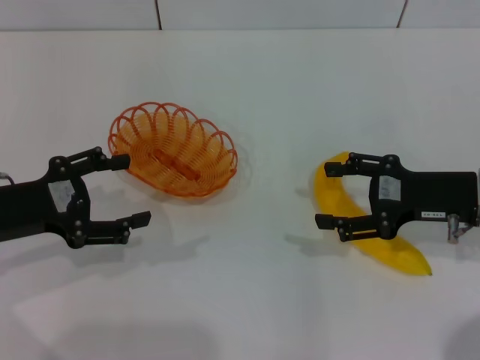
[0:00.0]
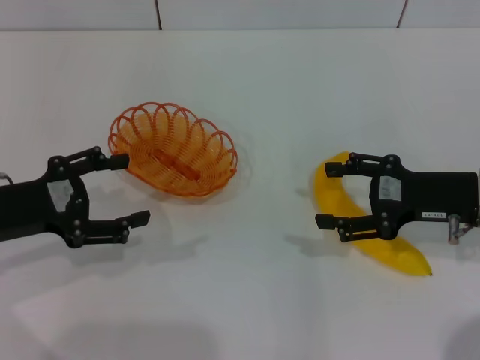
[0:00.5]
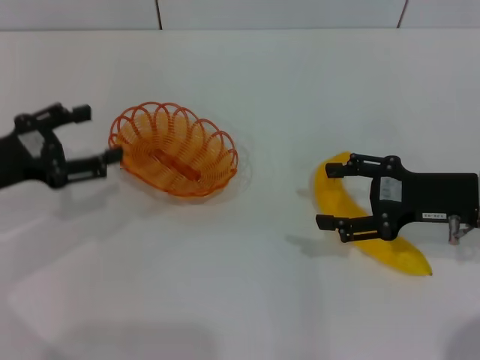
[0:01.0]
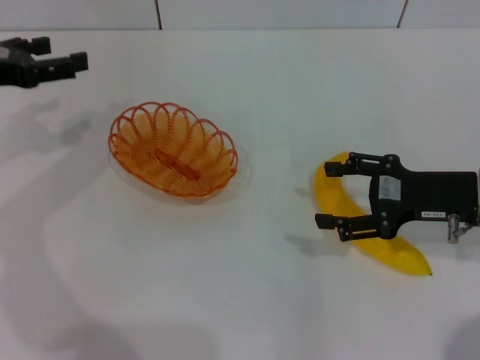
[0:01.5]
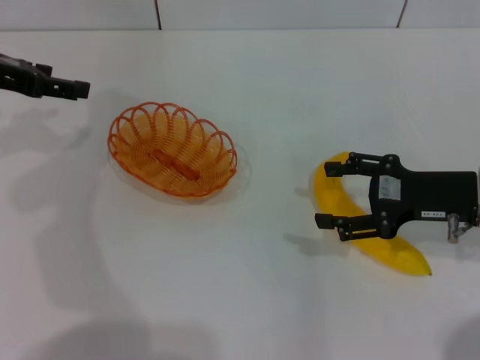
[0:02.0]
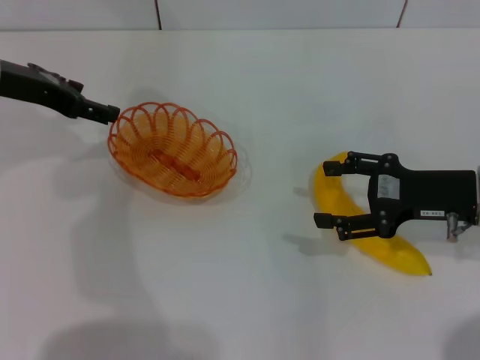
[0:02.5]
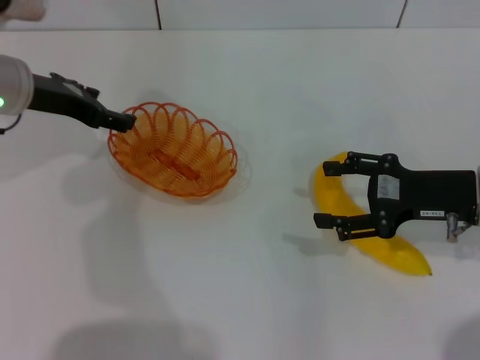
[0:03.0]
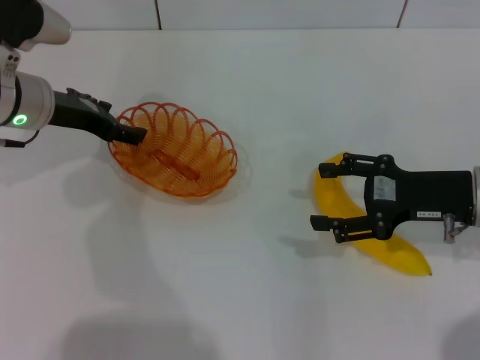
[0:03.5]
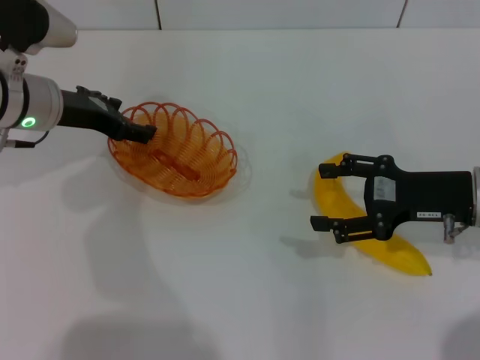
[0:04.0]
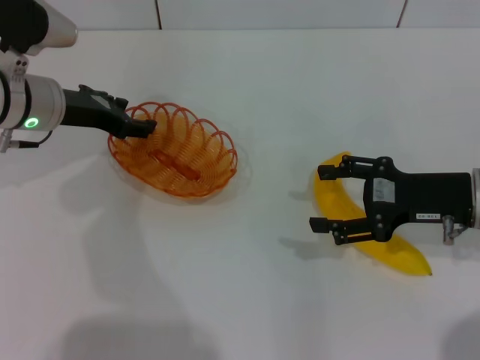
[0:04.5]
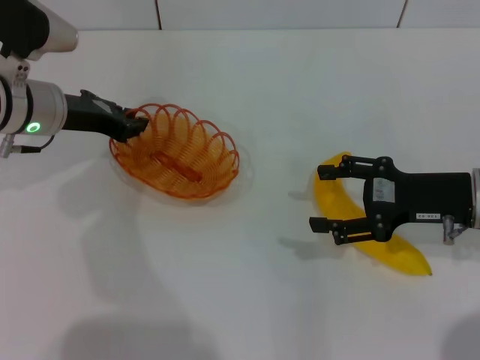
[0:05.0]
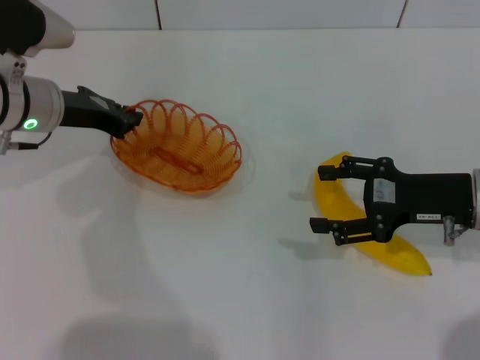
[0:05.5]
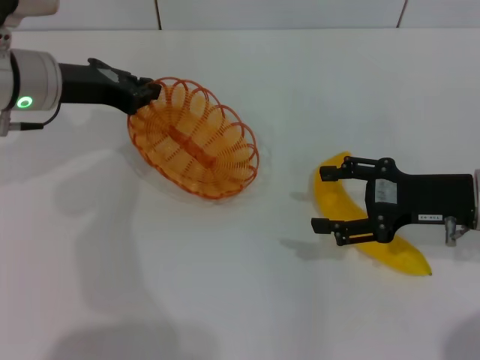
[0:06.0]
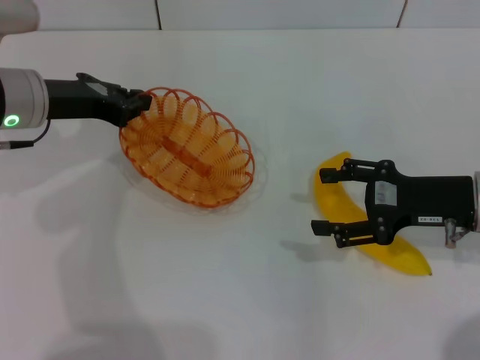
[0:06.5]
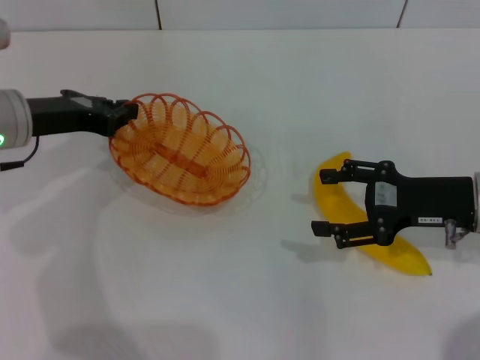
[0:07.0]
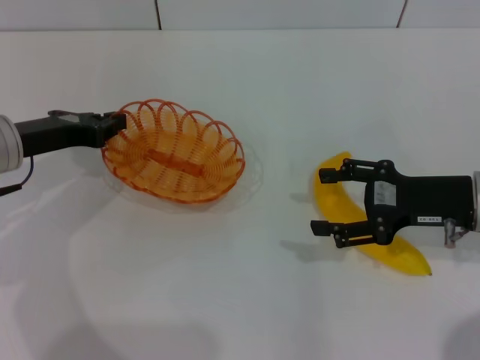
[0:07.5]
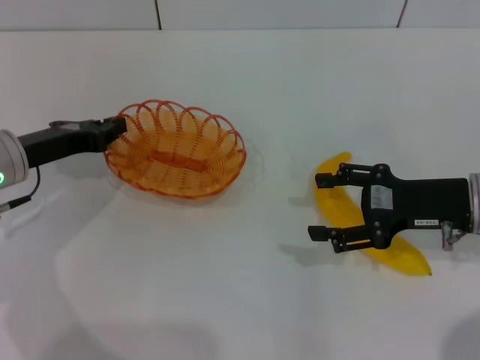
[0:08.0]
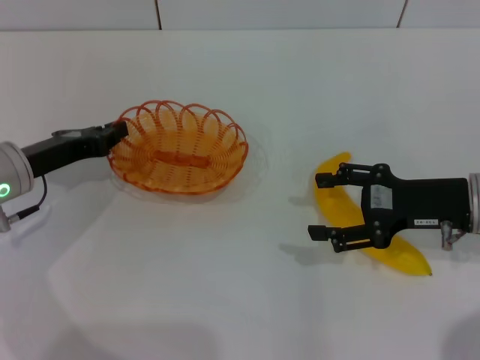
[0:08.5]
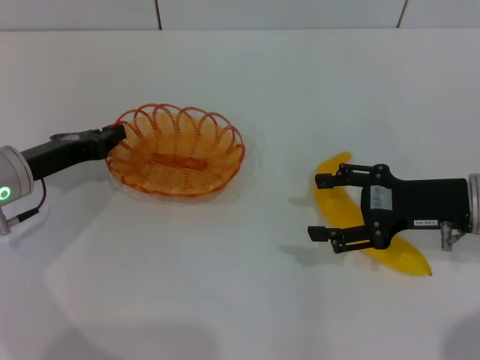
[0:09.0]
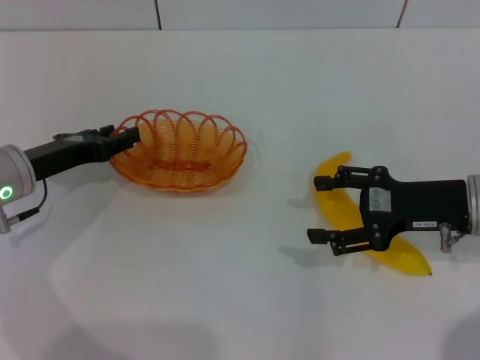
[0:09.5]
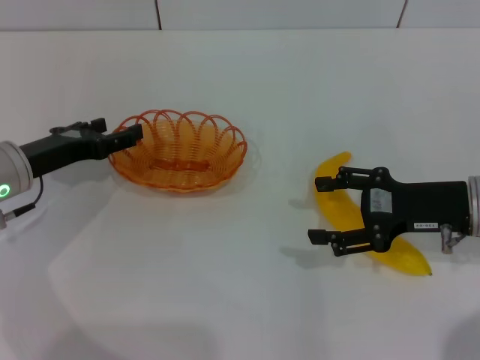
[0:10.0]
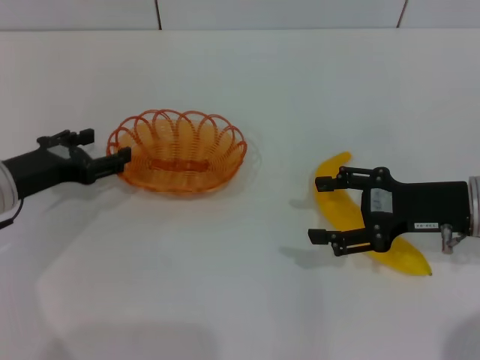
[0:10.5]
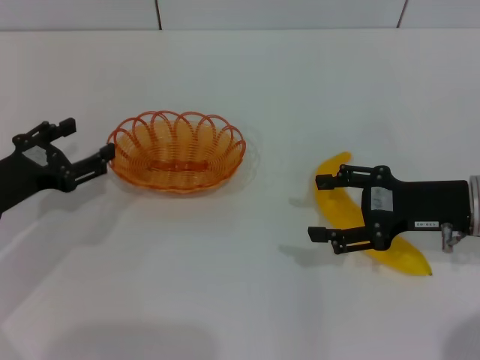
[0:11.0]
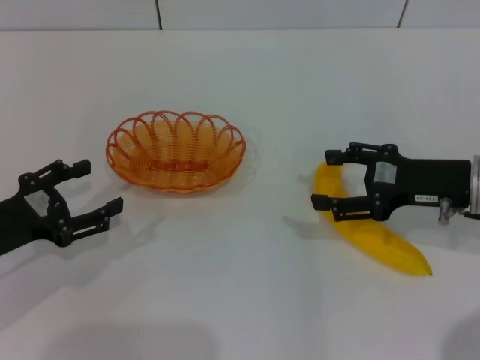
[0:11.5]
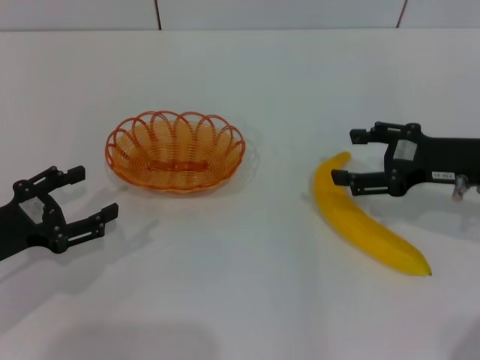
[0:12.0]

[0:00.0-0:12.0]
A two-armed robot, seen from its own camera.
Step, 0:00.0 to 0:06.0: Pick up the basket with the left gripper.
Step, 0:06.5 to 0:10.0: Place the basket in the center of view with the left gripper.
0:00.0 to 0:02.0: The left gripper shifts approximately 15 cm forward and upward.
0:02.0 to 0:04.0: The left gripper moves to the right and downward, approximately 10 cm.
0:04.0 to 0:06.0: The left gripper closes its fingers.
0:06.0 to 0:08.0: The left gripper heads downward and backward, covering some 10 cm.
0:08.0 to 0:10.0: The left gripper opens up.
0:10.0 to 0:12.0: The left gripper is displaced backward by roughly 10 cm.

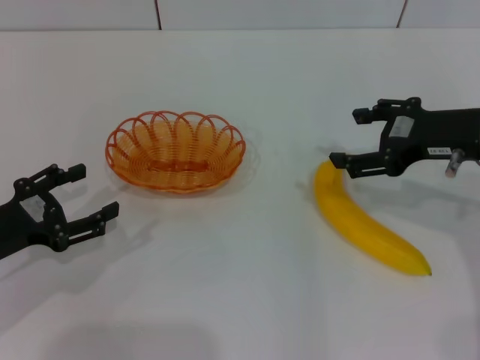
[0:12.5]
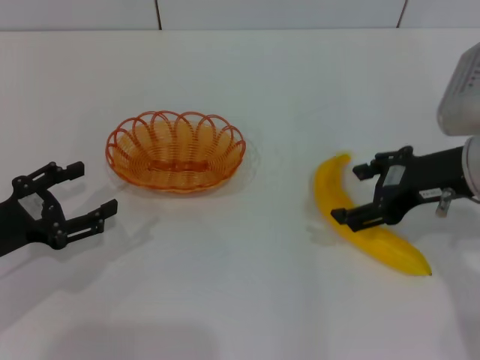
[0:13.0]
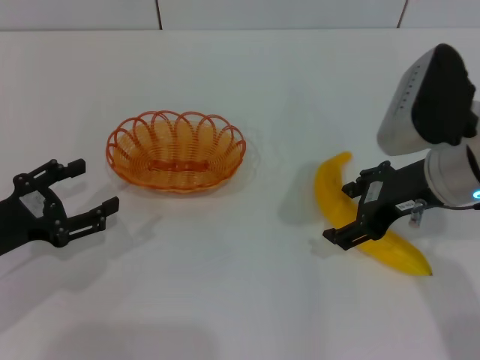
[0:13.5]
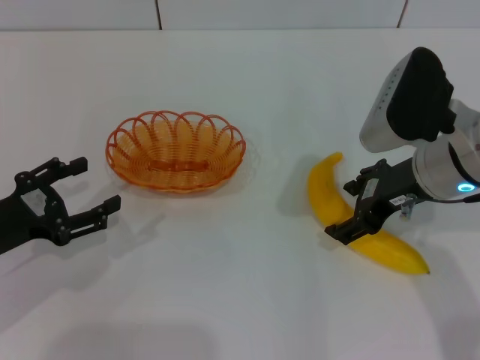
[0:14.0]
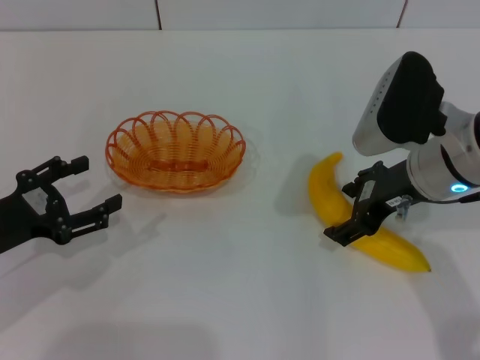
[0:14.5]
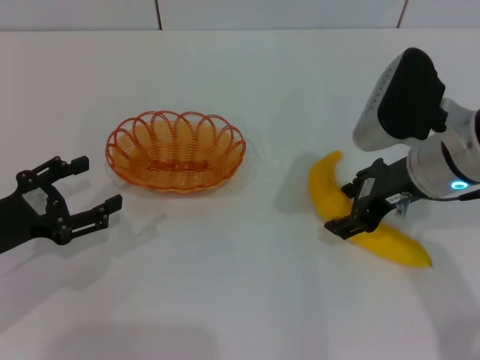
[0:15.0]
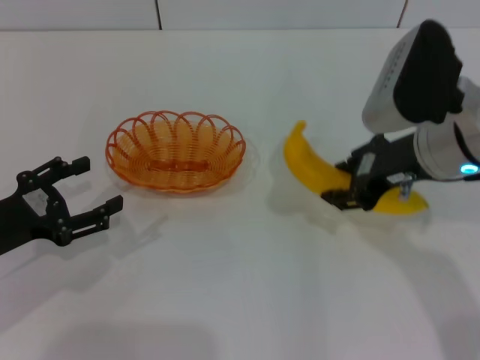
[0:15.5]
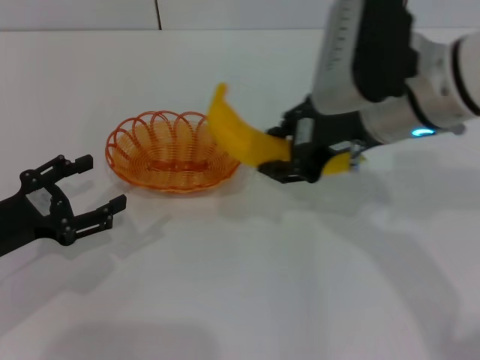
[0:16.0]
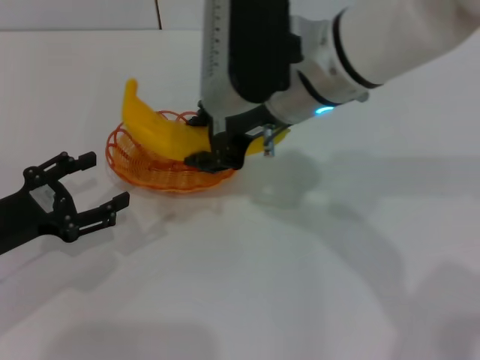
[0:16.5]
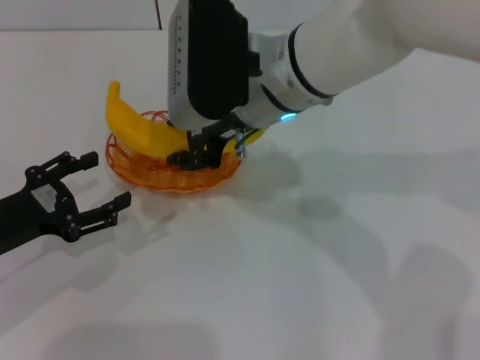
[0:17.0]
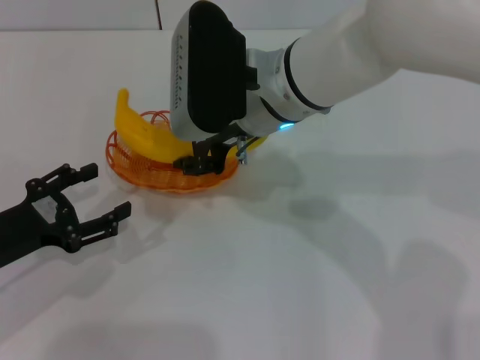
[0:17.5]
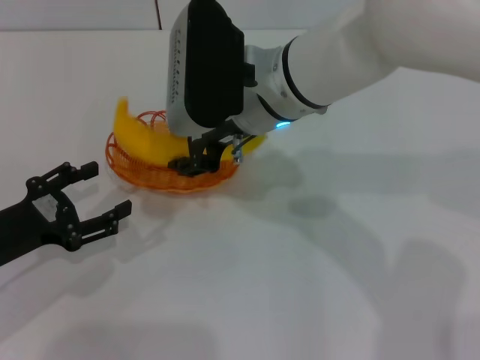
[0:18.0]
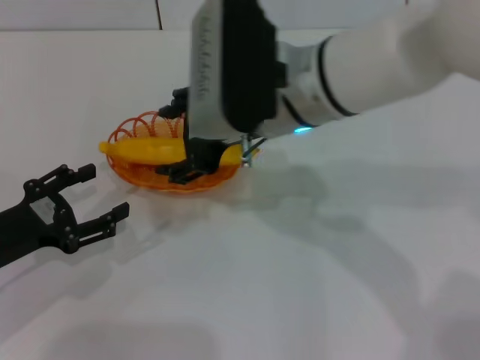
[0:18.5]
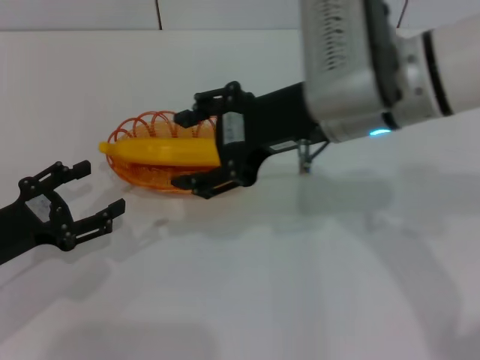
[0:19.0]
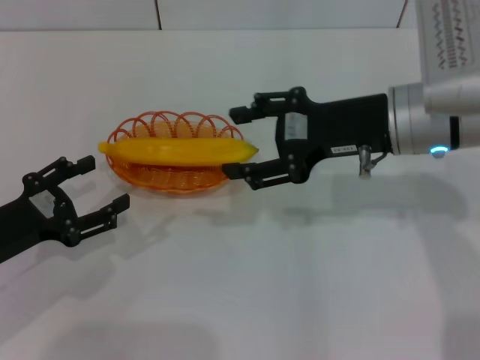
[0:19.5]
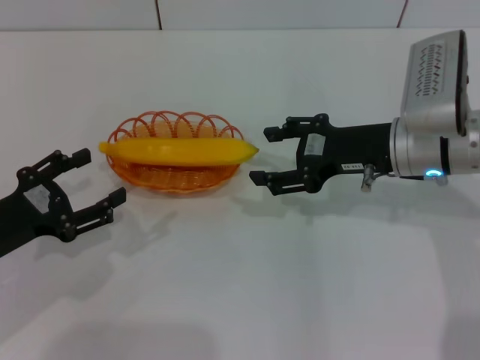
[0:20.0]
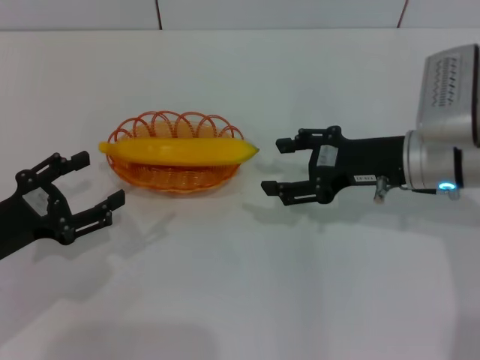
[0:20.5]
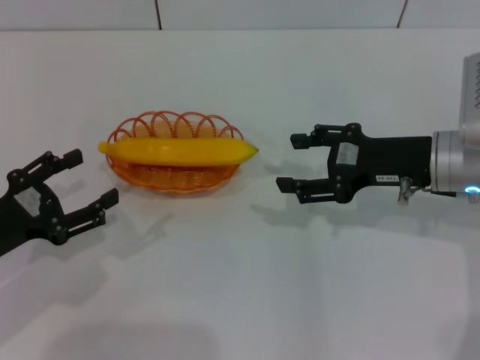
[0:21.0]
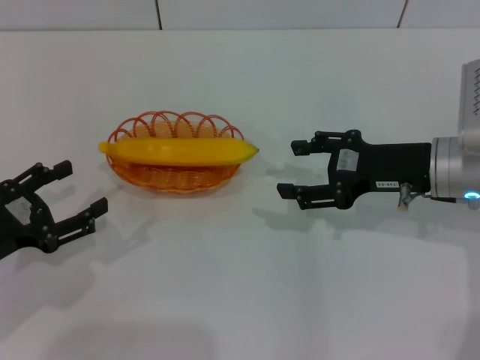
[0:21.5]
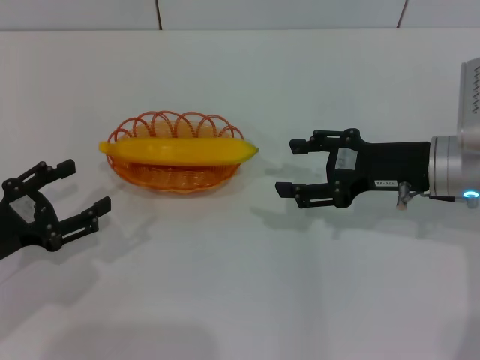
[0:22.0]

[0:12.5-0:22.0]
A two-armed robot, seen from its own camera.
Step, 0:12.5 to 0:15.5: Pick up the banana with the right gripper.
Step, 0:16.0 to 0:18.5: Place the banana into the basket with the right gripper.
0:12.5 to 0:14.5: The right gripper heads to the left, covering roughly 5 cm.
0:14.5 to 0:16.5: The right gripper heads to the left and upward, covering roughly 15 cm, and closes up.
0:16.5 to 0:18.0: The grippers make only small movements.
0:18.0 to 0:20.0: The right gripper heads to the right, covering some 15 cm, and opens its fingers.
0:20.0 to 0:22.0: The grippers make only small movements.

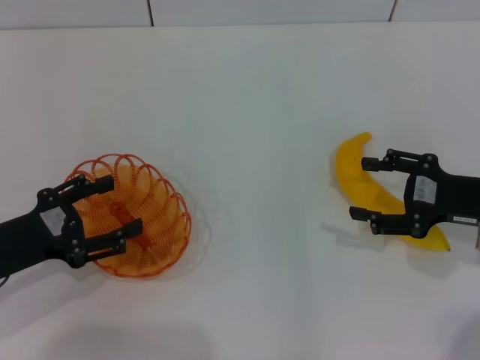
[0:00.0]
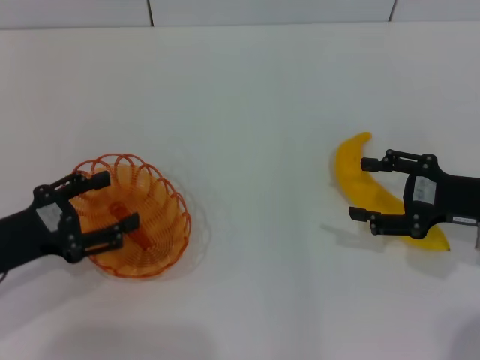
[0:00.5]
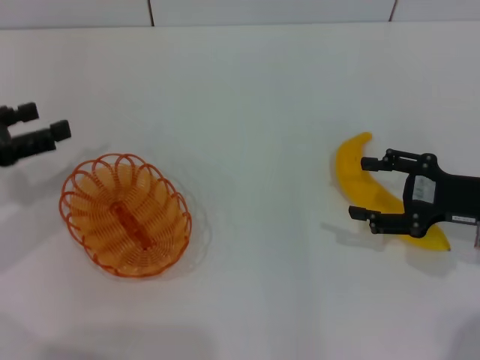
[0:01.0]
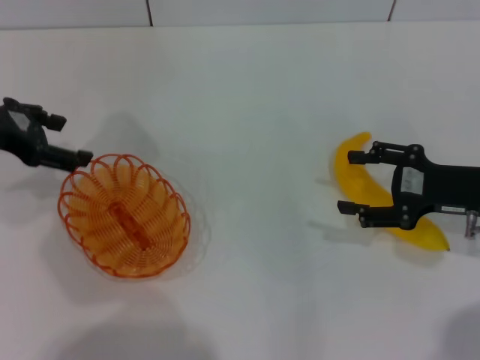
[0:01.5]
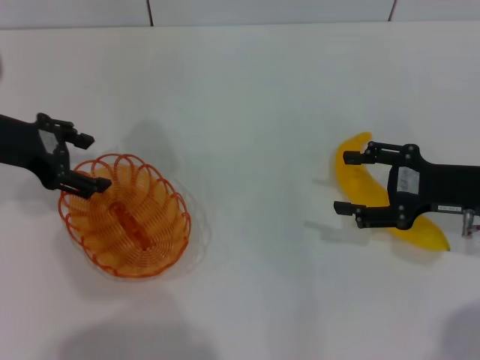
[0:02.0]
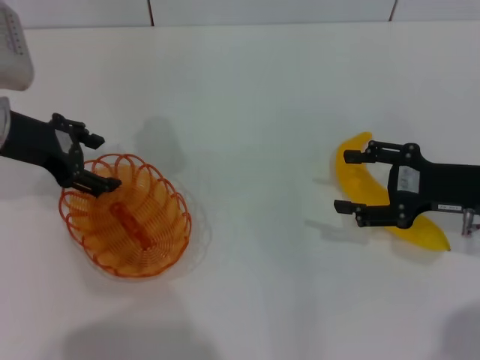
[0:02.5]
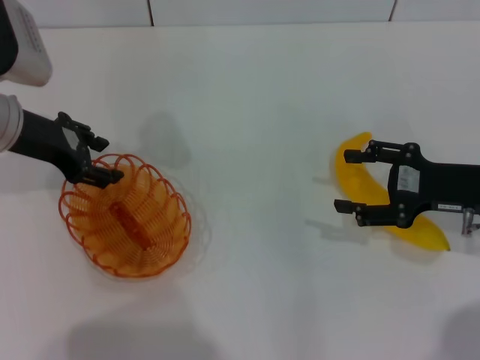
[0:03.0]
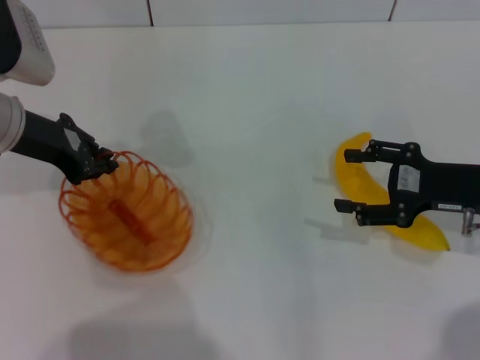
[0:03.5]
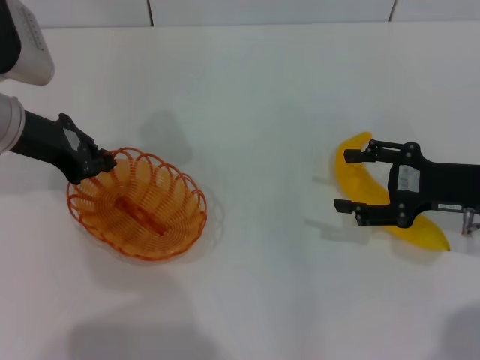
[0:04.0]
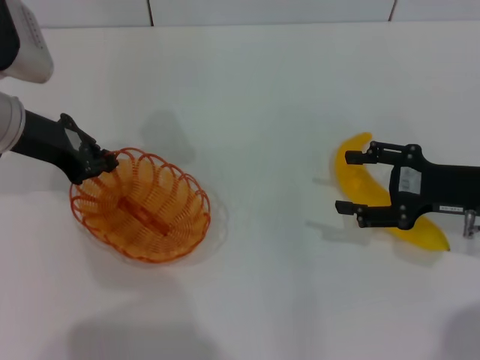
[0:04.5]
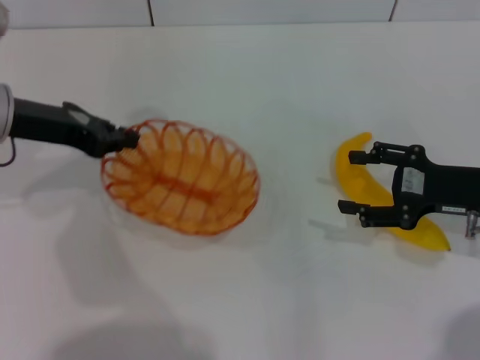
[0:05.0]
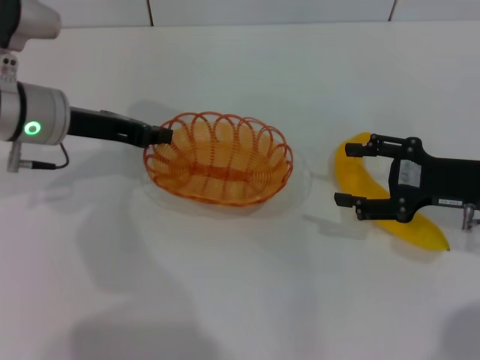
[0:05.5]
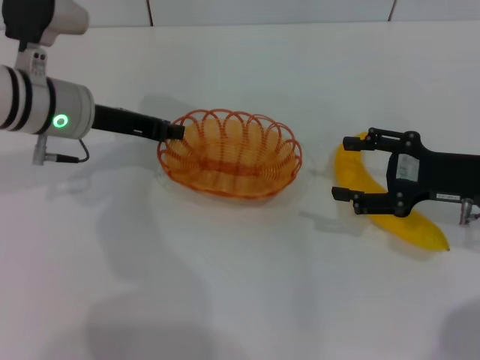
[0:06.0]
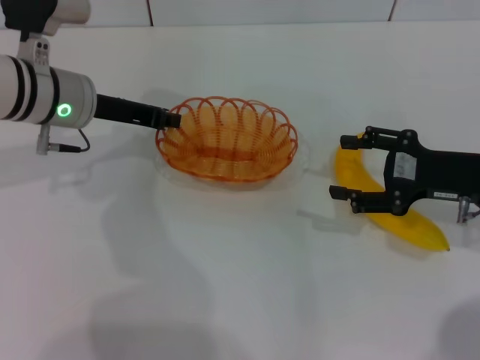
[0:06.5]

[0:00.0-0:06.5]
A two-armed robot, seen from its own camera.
Step, 0:00.0 to 0:05.0: Pick up the basket with the left gripper.
0:00.0 to 0:02.0: The left gripper moves forward and upward, some 15 cm.
0:02.0 to 0:04.5: The left gripper closes its fingers.
0:04.5 to 0:06.5: The left gripper moves to the right, roughly 5 cm.
